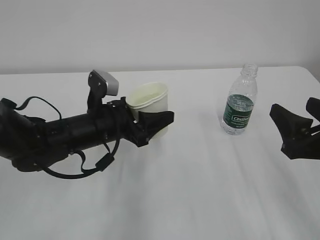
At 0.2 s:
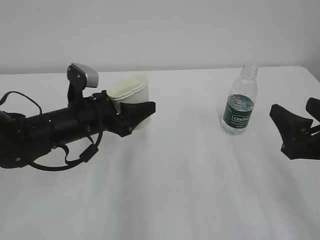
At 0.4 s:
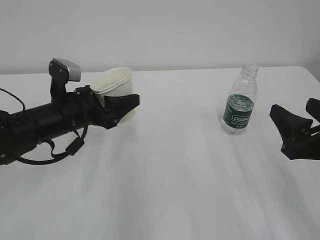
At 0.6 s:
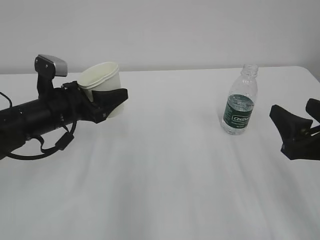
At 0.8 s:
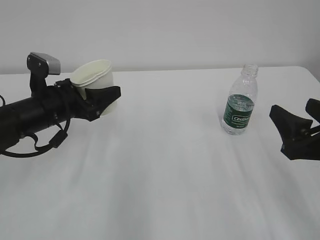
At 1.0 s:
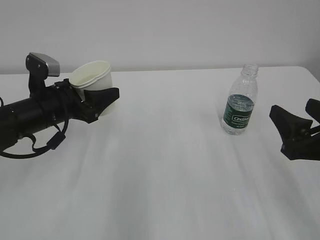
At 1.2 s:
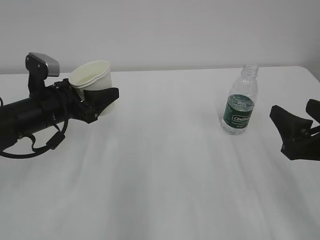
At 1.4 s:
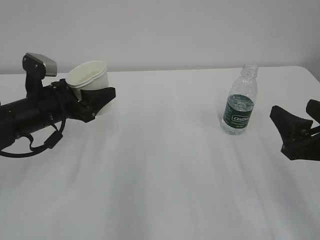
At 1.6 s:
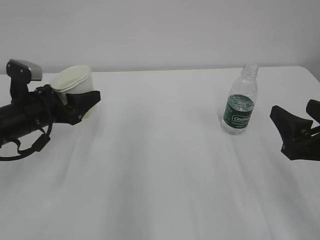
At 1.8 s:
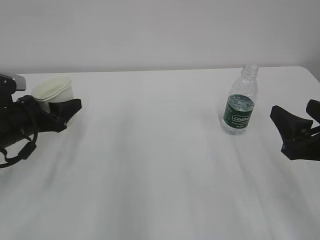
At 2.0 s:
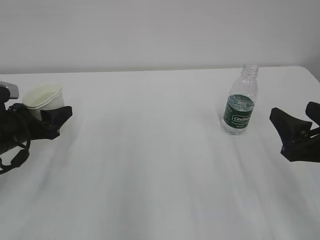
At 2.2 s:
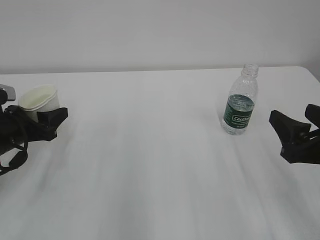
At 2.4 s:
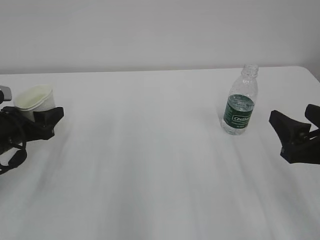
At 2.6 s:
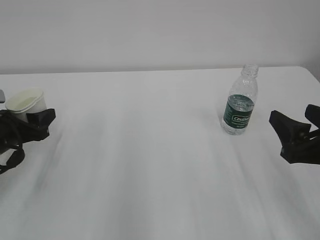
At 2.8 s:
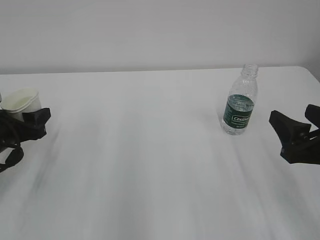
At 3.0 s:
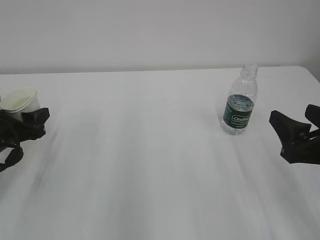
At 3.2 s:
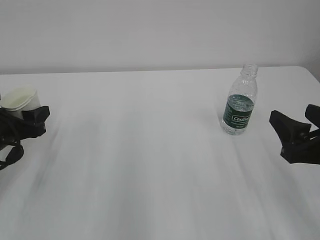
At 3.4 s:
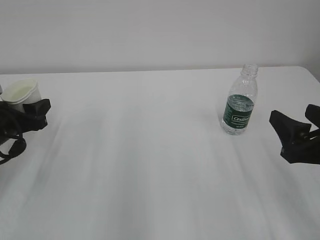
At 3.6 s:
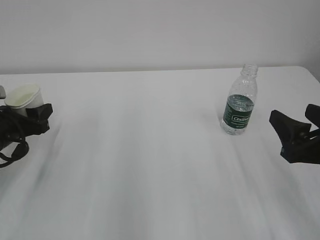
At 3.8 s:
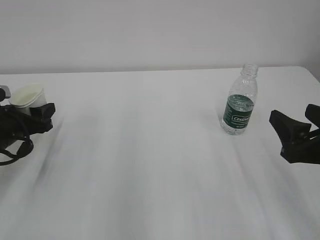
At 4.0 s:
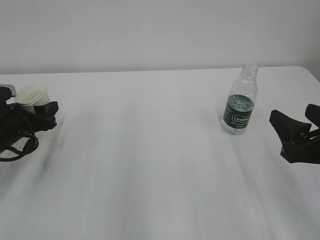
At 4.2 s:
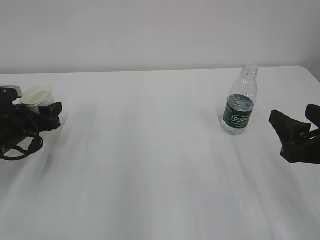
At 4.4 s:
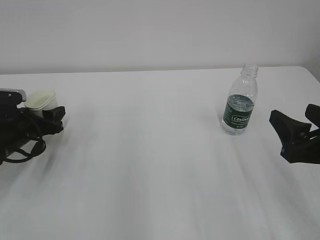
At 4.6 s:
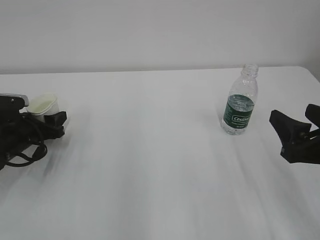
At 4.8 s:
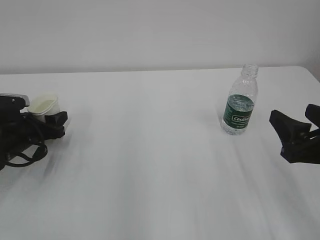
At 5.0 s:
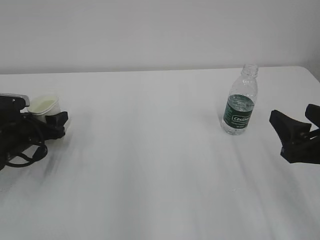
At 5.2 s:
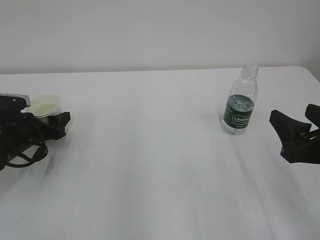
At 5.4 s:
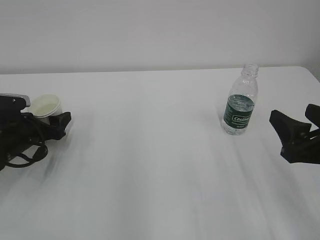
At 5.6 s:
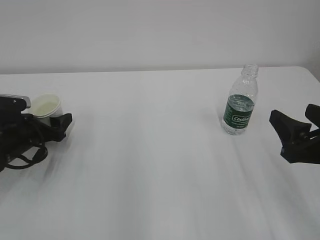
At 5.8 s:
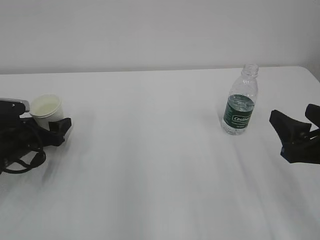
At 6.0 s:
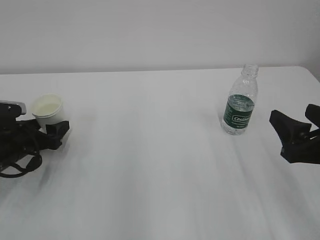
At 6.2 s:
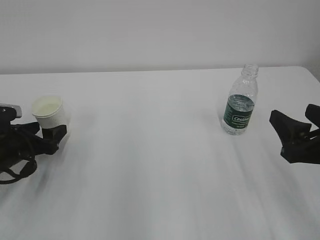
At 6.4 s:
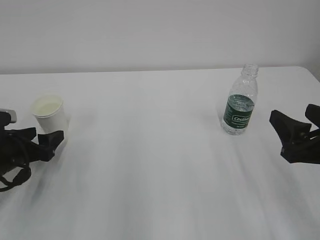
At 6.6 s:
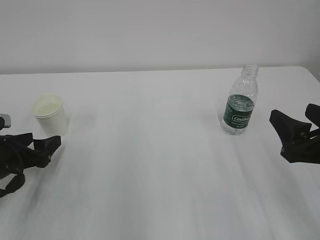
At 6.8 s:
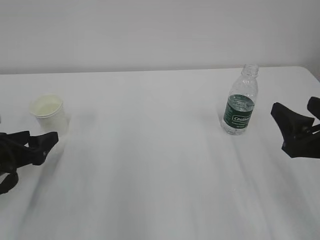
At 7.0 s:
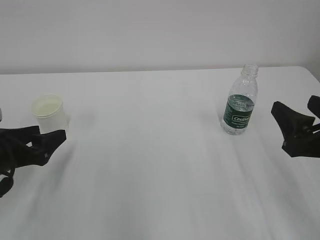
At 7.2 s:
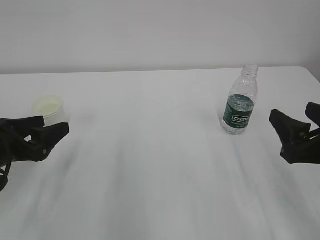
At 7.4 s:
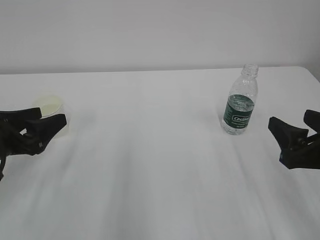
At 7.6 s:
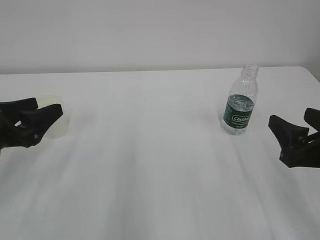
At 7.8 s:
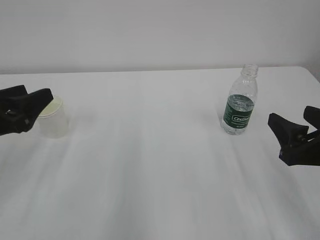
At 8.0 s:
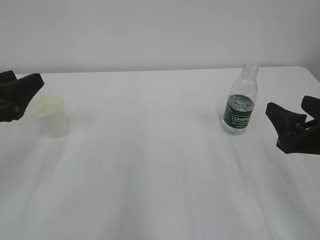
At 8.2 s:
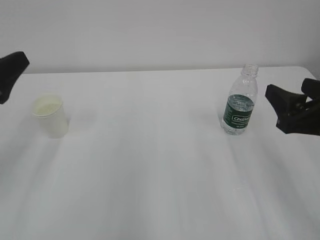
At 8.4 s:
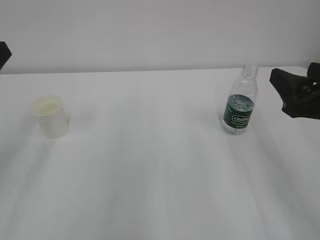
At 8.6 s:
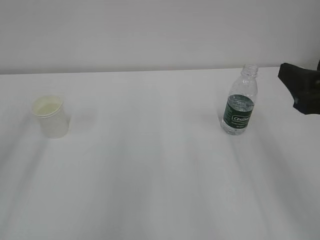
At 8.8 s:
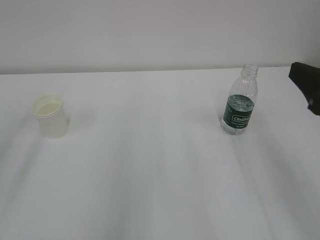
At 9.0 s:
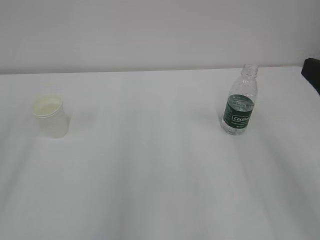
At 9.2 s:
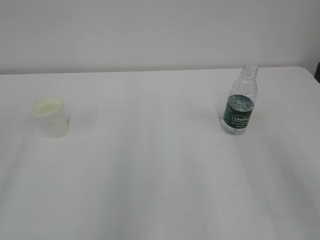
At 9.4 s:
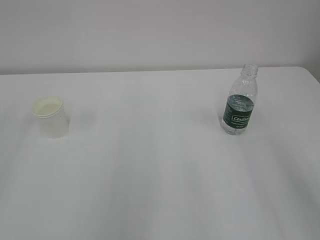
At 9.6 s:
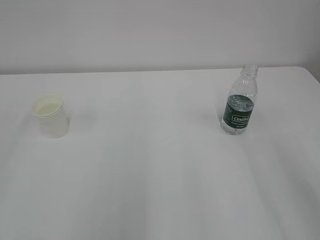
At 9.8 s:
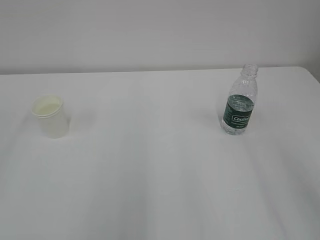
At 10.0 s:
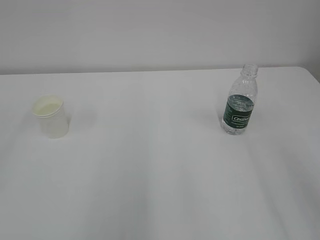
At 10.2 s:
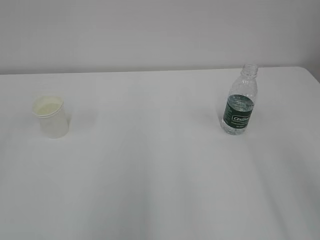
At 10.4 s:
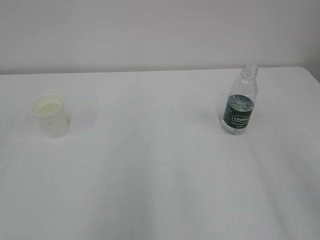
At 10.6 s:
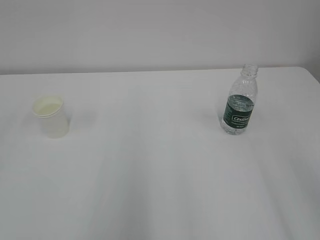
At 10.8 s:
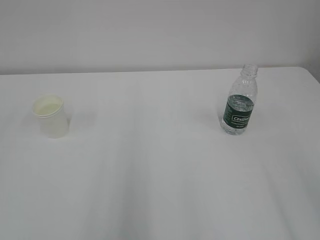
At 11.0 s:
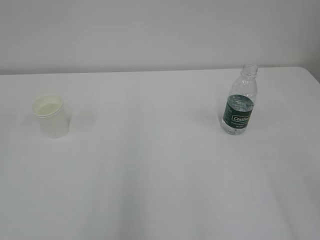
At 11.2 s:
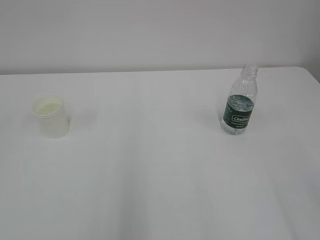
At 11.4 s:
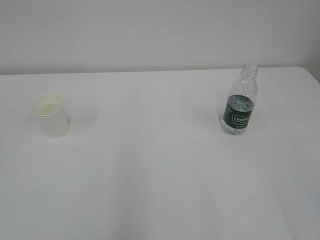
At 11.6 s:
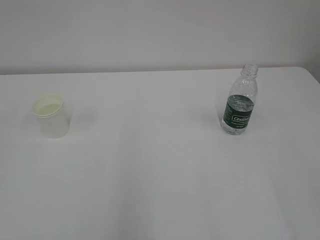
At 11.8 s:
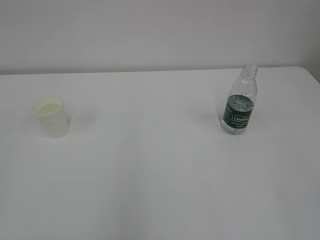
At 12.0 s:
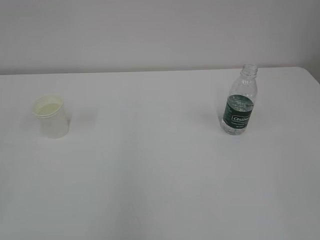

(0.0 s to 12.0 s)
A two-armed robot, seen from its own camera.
0.0 s - 1.6 s: The left gripper moves to the left, approximately 10 cm.
1.6 s - 3.0 s: The left gripper is displaced to the left by about 5 cm.
3.0 s - 4.4 s: The left gripper goes roughly 5 cm forward.
4.4 s - 6.0 s: The left gripper opens its fingers.
6.0 s - 7.6 s: The left gripper shifts approximately 15 cm upward and backward.
7.6 s - 9.0 s: The left gripper is displaced upward and backward by some 15 cm. The right gripper heads upward, covering roughly 10 cm.
